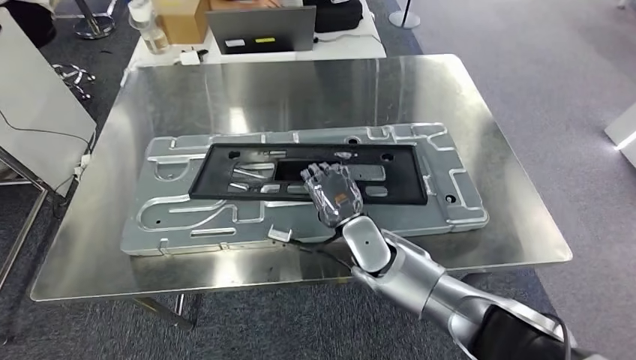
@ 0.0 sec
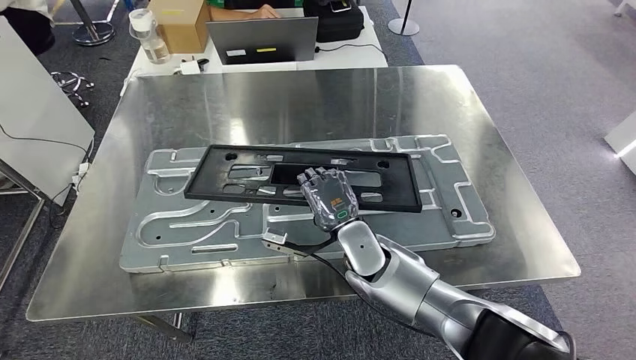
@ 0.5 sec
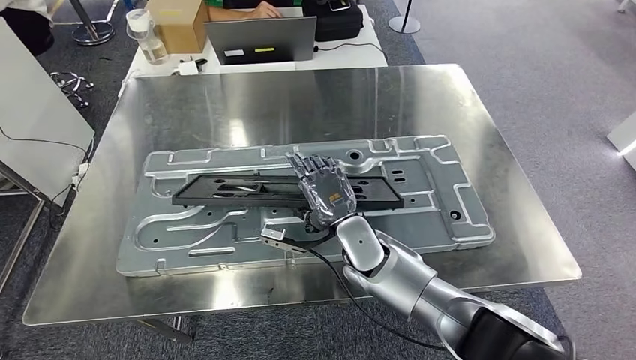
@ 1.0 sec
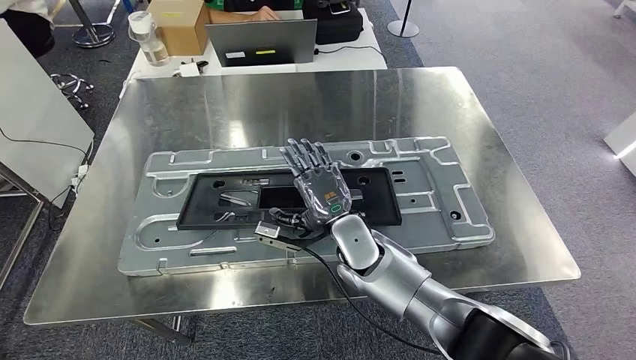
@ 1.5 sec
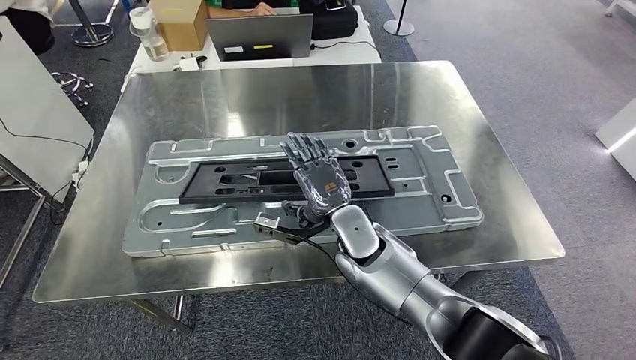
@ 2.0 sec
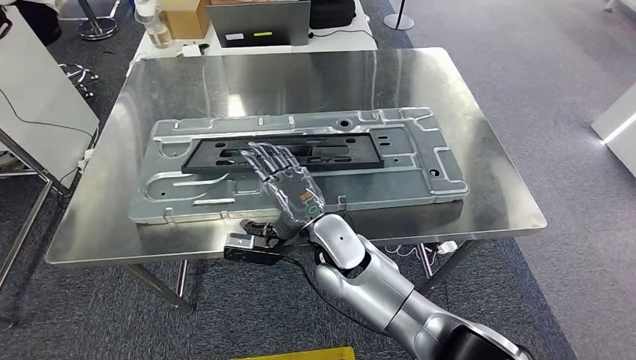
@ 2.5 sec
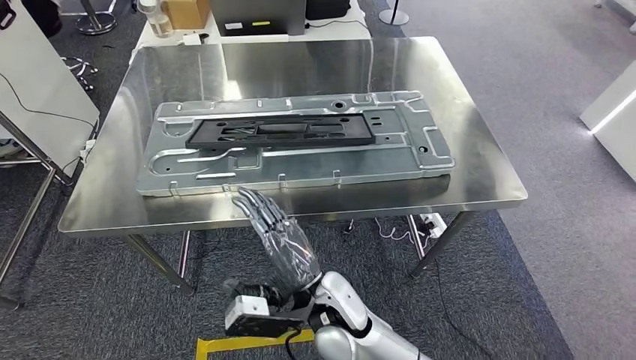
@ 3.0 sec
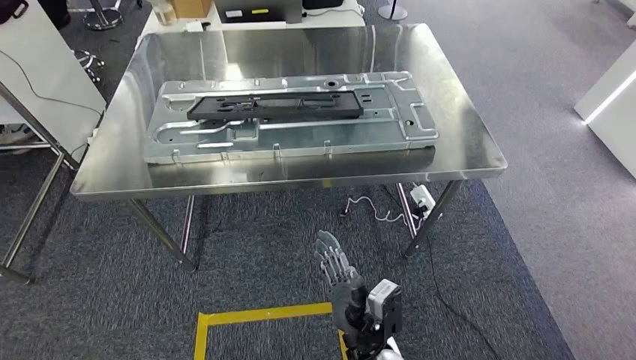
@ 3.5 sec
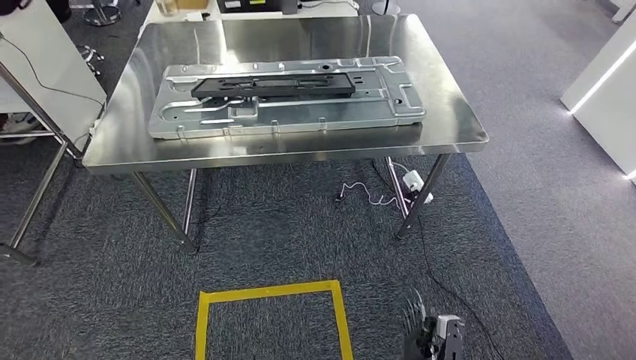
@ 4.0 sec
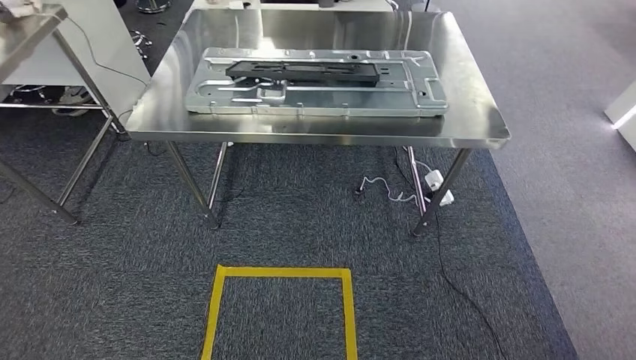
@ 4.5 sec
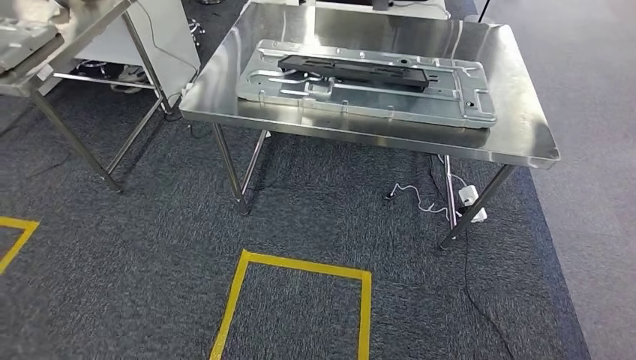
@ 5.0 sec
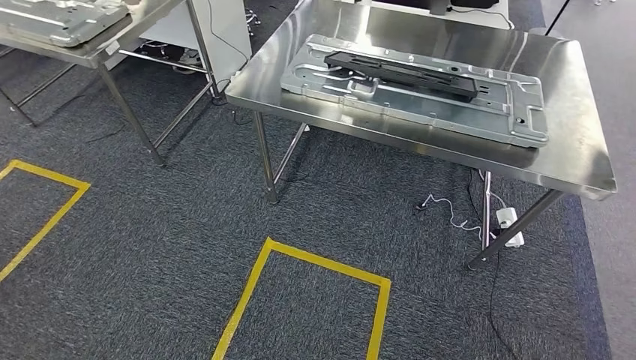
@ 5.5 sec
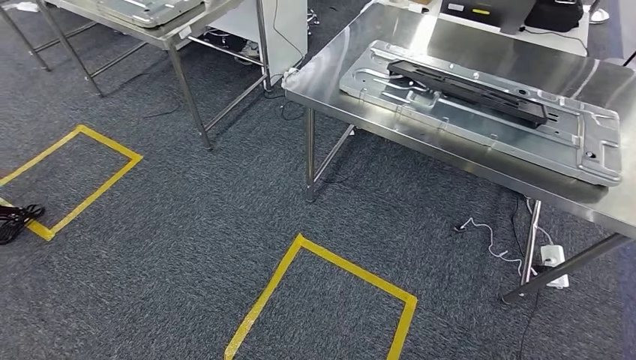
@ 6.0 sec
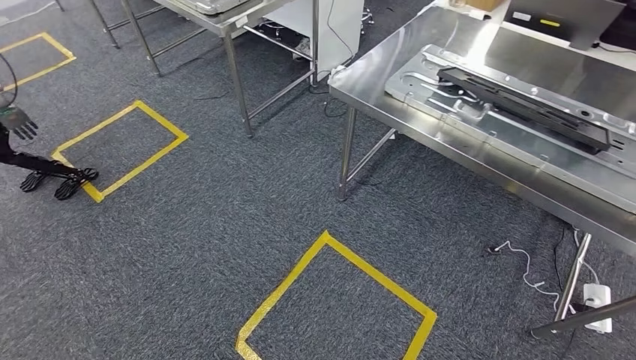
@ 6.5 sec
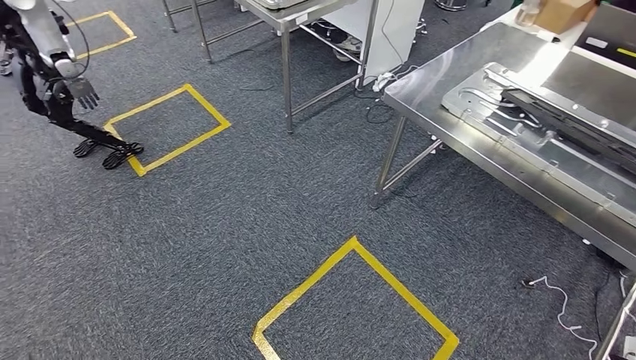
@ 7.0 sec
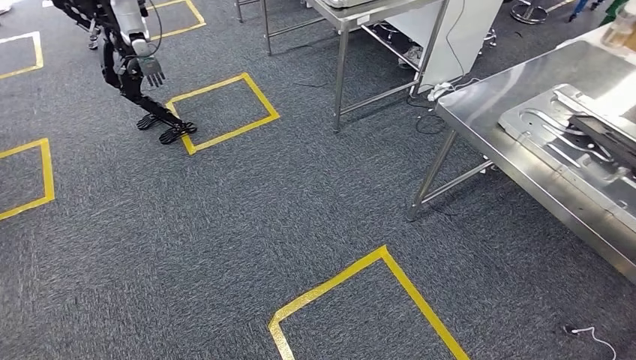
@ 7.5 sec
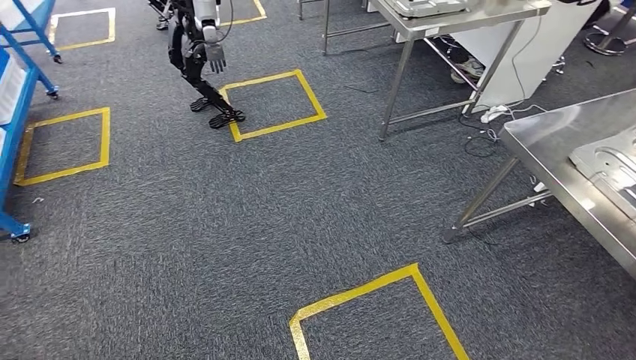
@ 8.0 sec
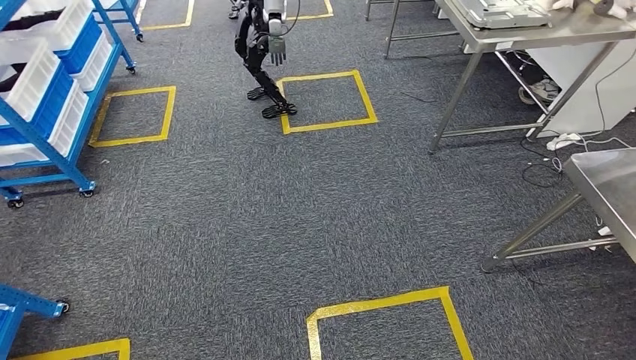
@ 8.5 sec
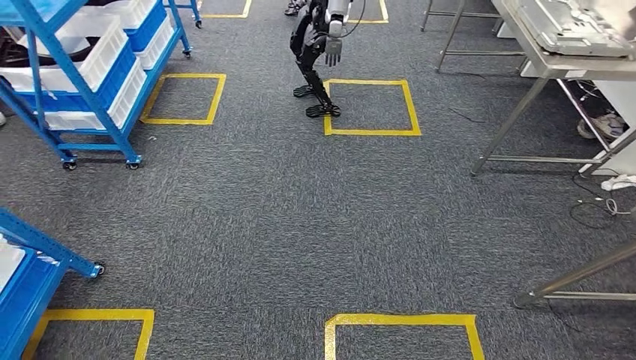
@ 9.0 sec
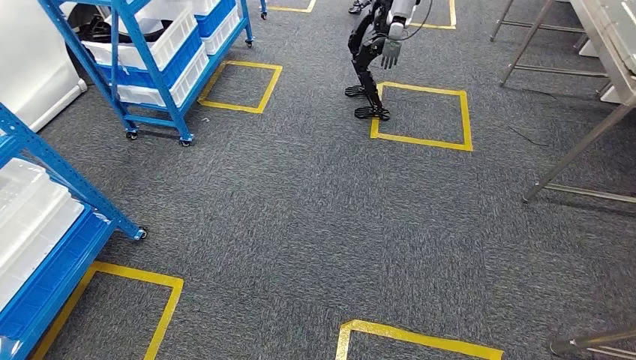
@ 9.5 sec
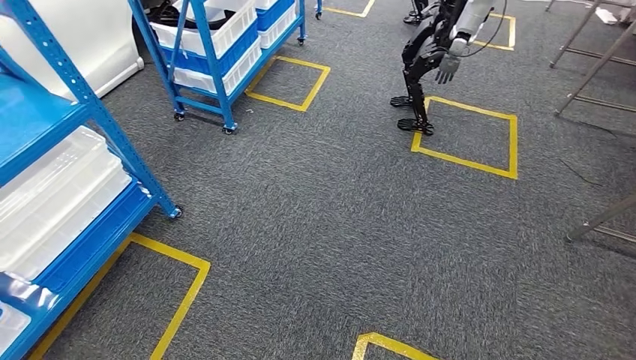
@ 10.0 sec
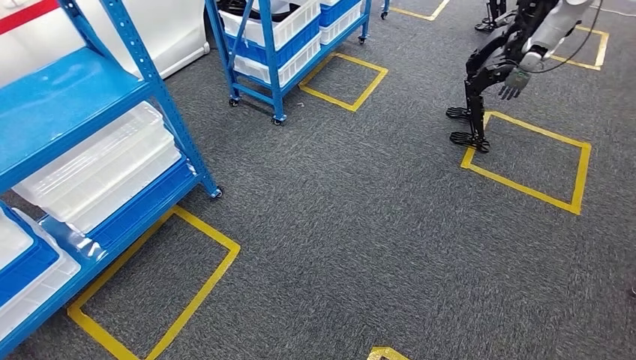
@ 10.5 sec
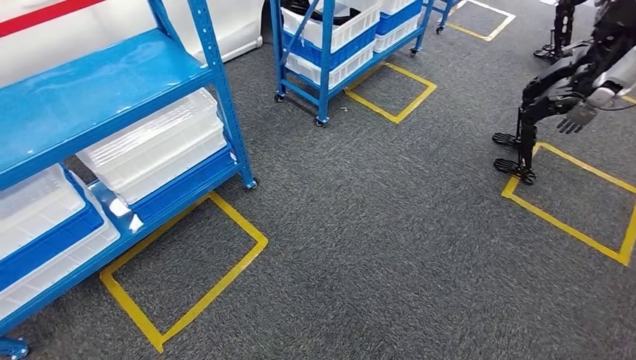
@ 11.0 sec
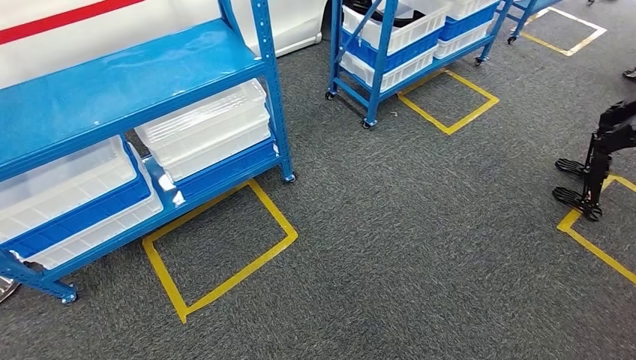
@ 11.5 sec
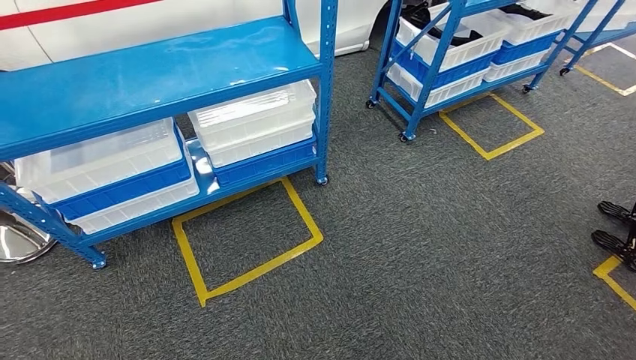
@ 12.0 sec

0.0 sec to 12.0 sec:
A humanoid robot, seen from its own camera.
Step, 0.0 sec to 5.5 sec: Insert the large material into the corresponding slot on the workbench.

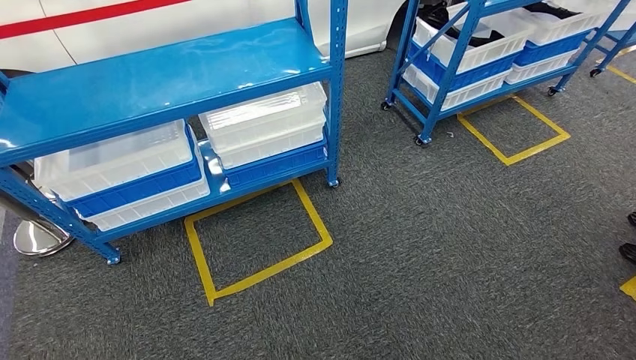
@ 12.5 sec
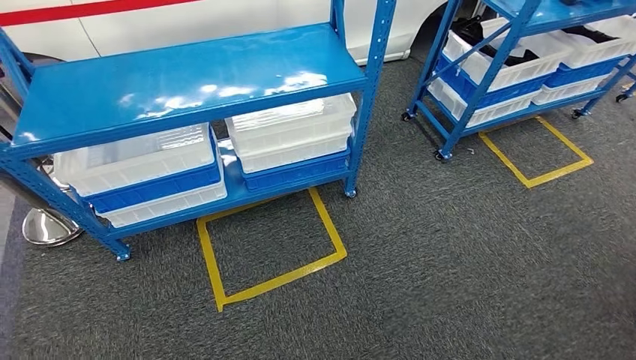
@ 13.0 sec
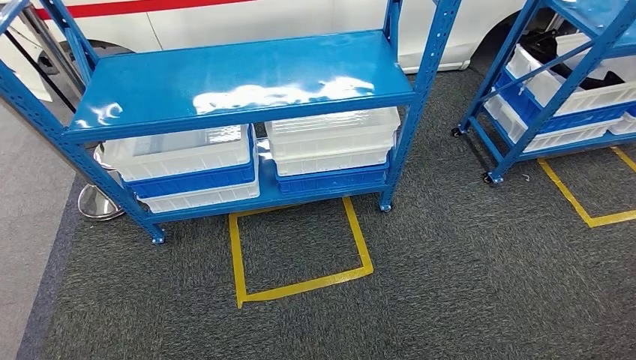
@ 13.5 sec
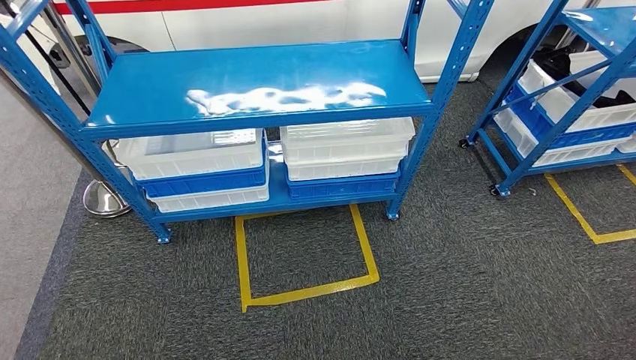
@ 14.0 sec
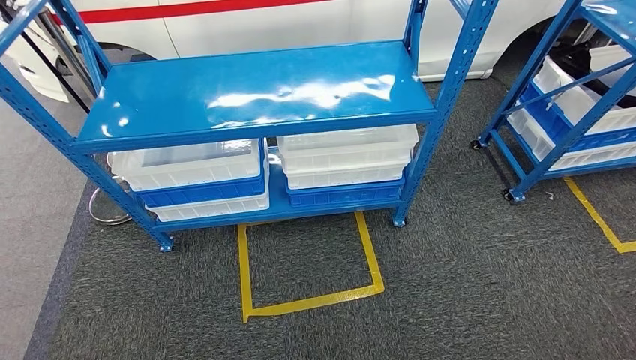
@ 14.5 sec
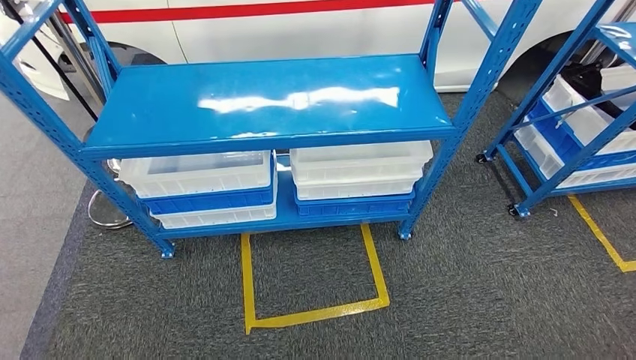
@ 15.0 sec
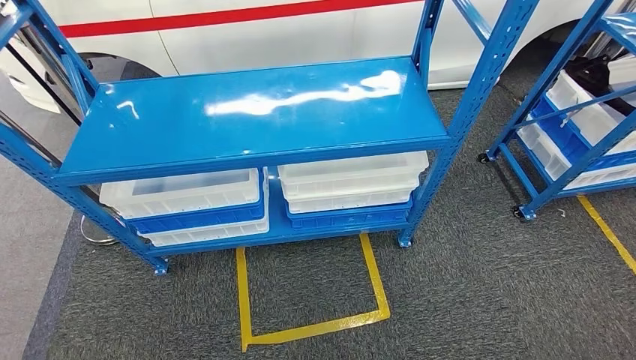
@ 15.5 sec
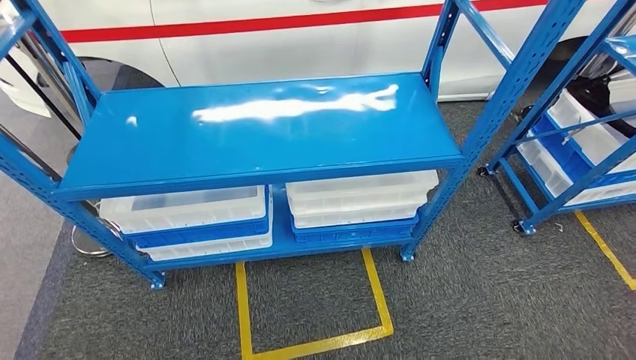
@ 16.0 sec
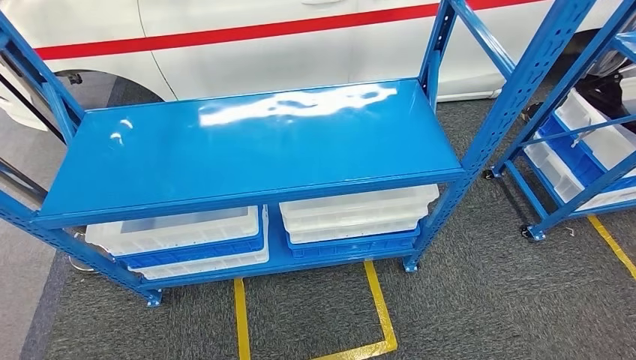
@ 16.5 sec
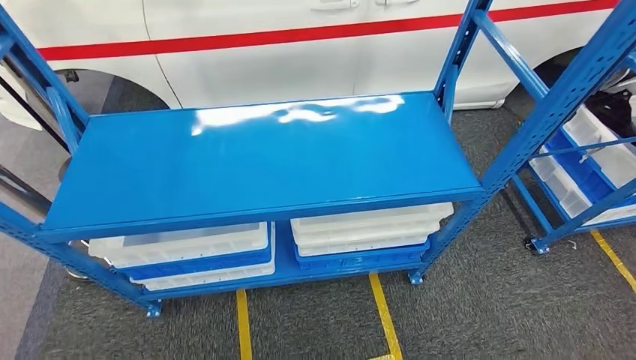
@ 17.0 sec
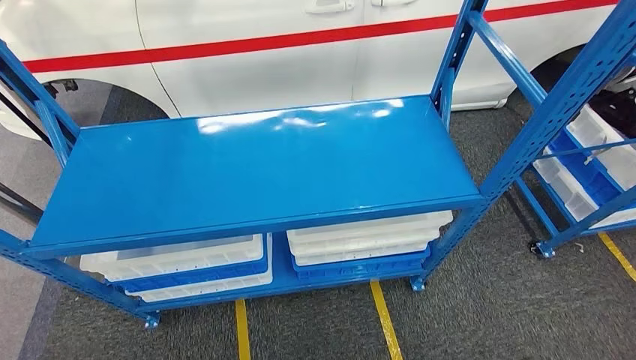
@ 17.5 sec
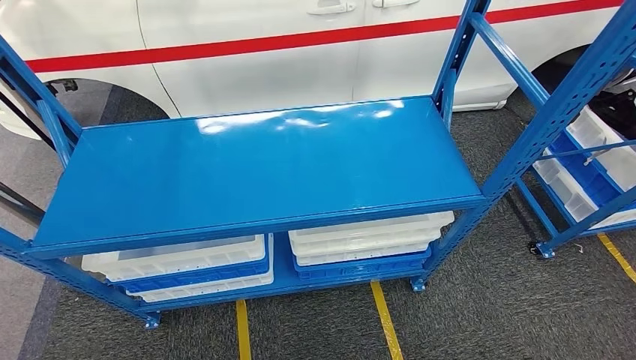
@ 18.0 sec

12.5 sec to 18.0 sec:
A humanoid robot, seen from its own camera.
Step, 12.5 sec to 18.0 sec: Move to the initial position of the shelf.
